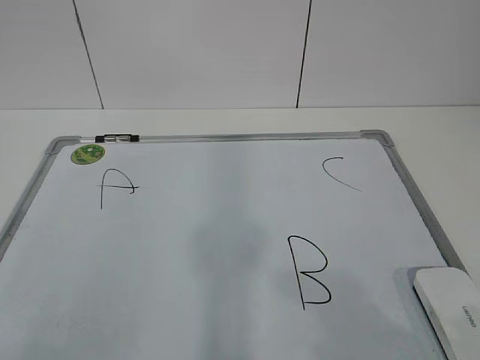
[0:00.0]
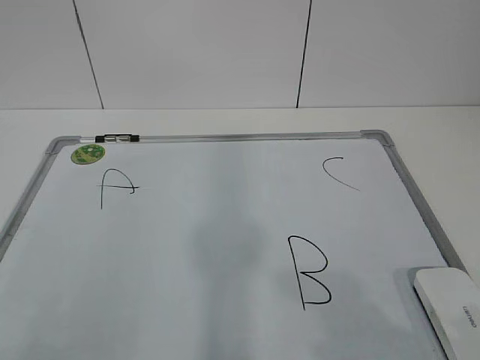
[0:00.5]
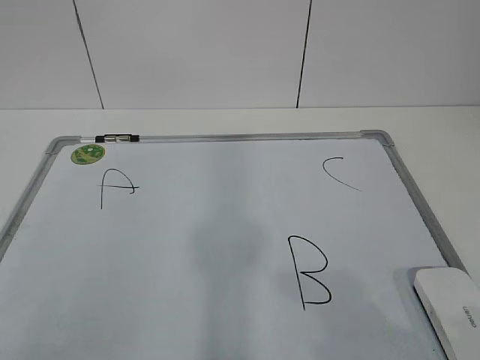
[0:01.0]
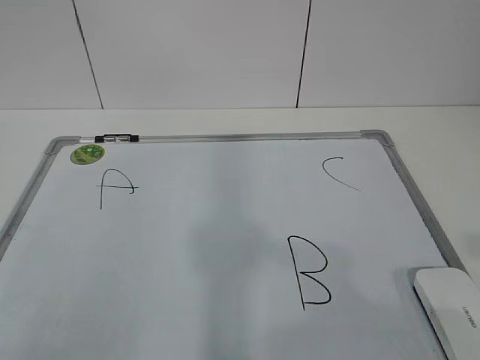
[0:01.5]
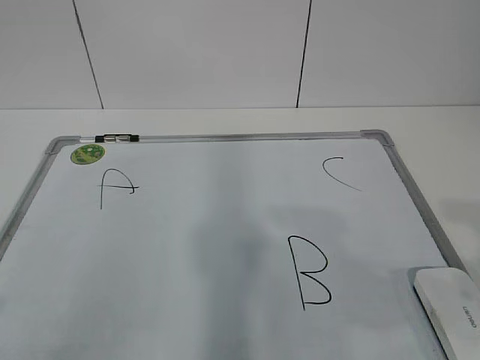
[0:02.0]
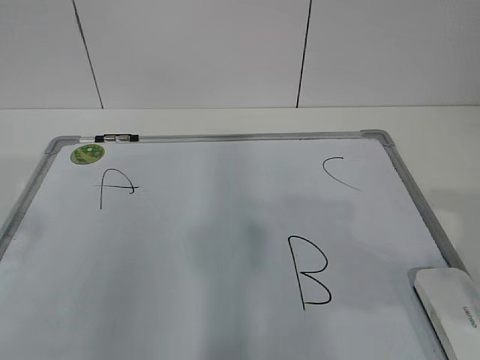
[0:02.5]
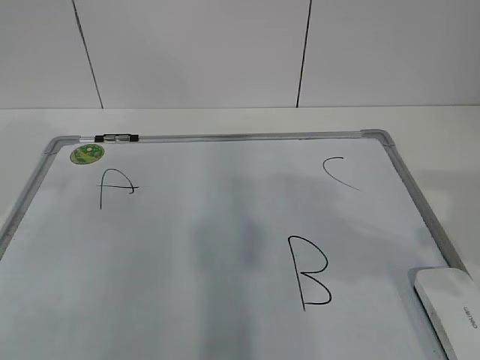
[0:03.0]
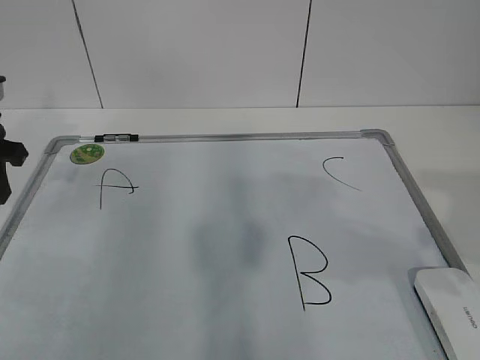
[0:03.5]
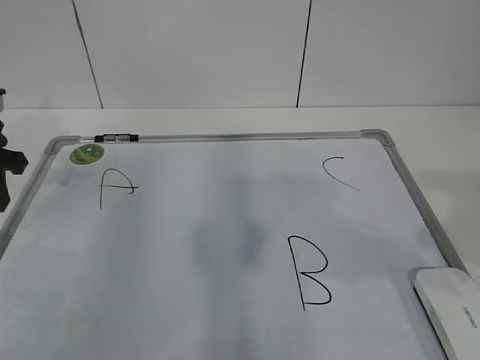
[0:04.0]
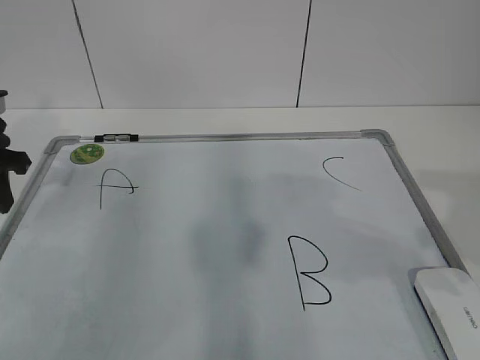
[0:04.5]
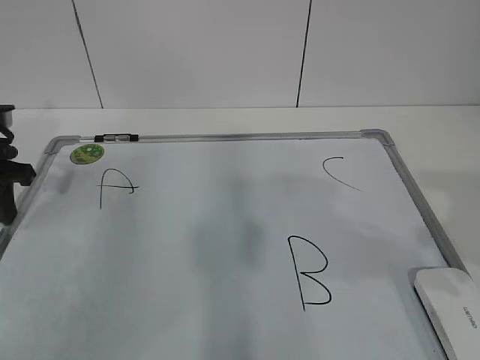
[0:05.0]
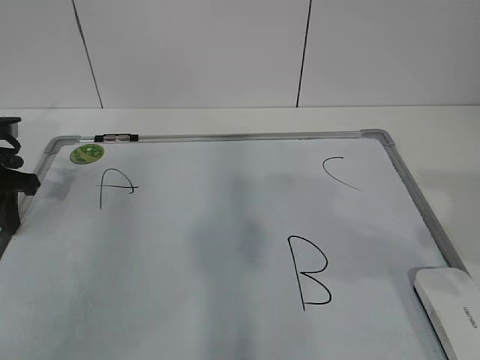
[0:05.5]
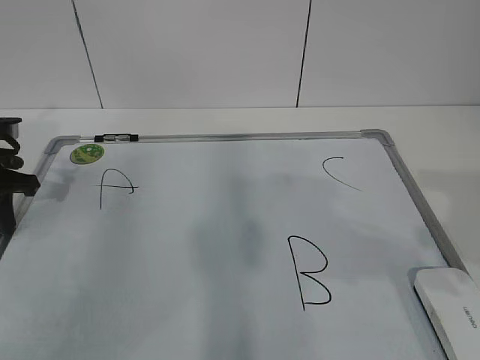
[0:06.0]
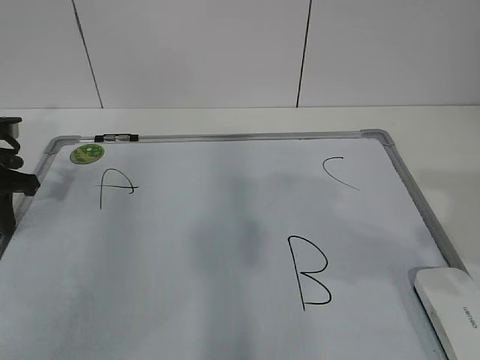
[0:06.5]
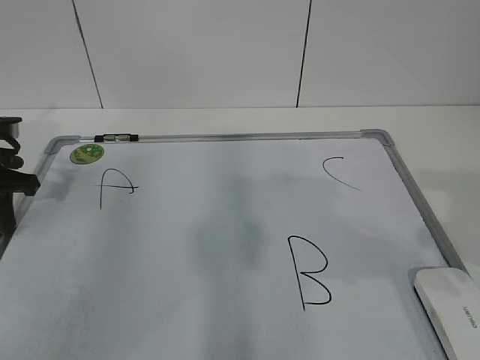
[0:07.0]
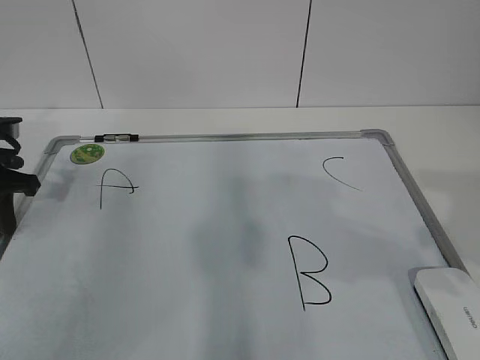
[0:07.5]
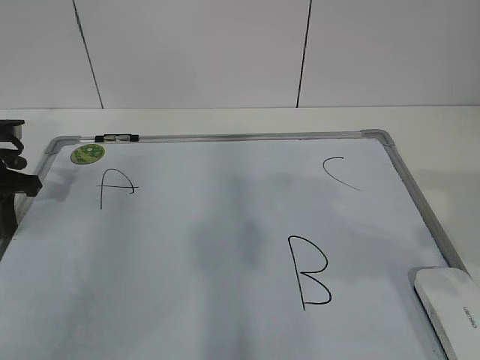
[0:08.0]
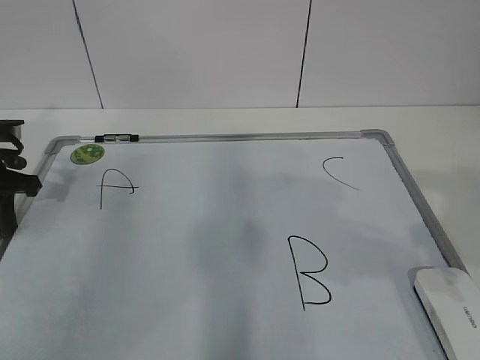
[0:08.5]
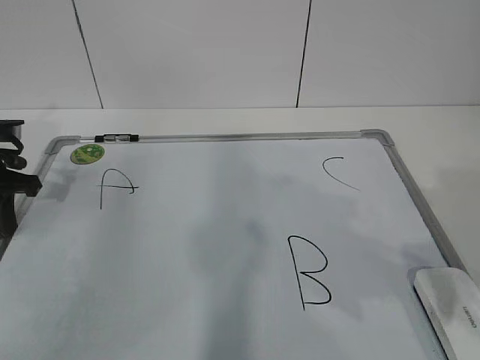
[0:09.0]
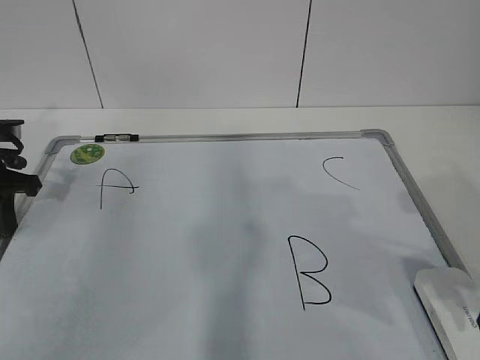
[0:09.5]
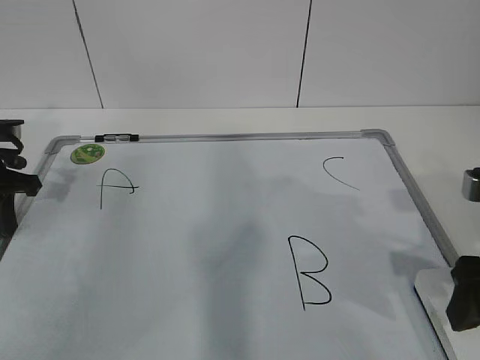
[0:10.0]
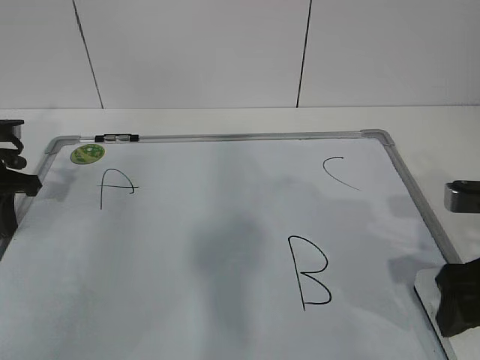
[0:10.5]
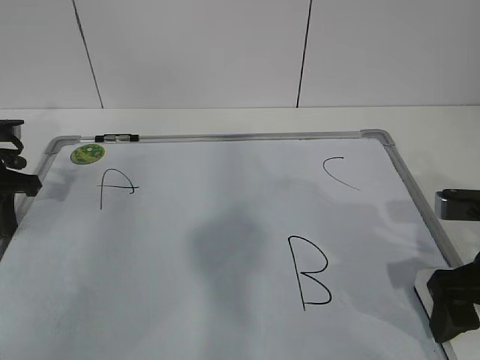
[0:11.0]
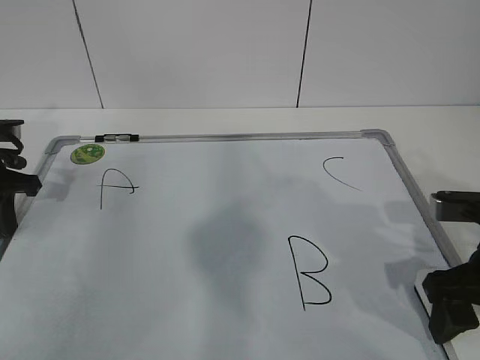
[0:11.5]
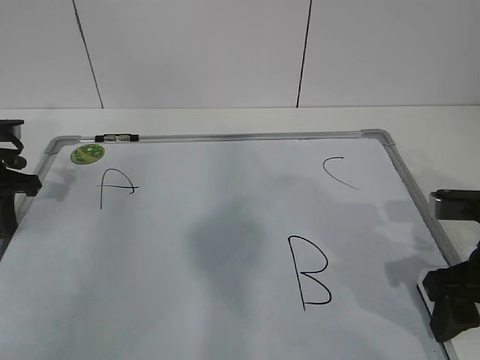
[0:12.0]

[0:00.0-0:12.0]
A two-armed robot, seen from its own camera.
Task of the whole recording: pick up the eraser on the blackboard and erase the letter "B".
0:02.0 to 0:04.0: The left gripper goes some 35 cm forward.
0:04.0 to 0:06.0: The left gripper closes up.
0:06.0 to 0:08.0: Both grippers stay put.
0:08.0 to 0:10.0: The right gripper shifts roughly 10 cm downward and forward, and opens.
0:10.0 to 0:12.0: The right gripper closes.

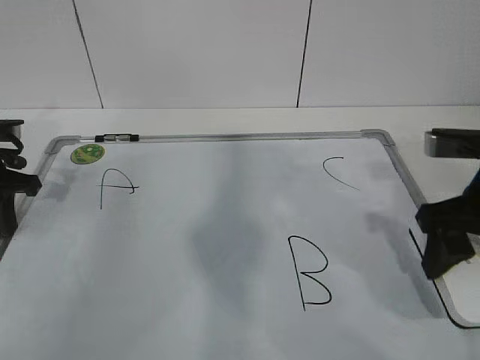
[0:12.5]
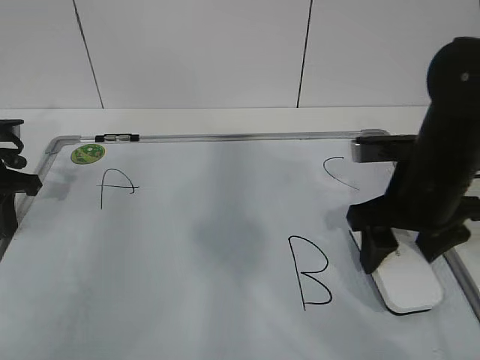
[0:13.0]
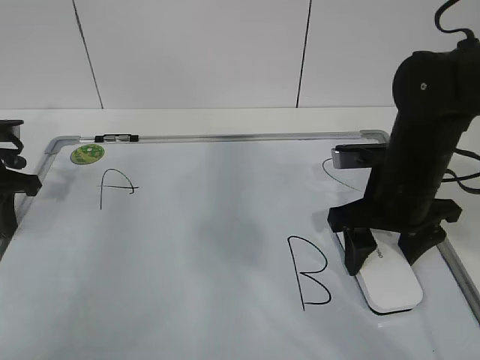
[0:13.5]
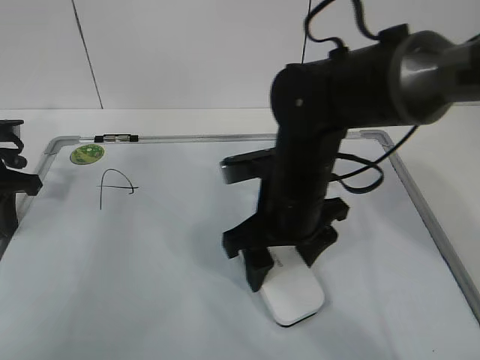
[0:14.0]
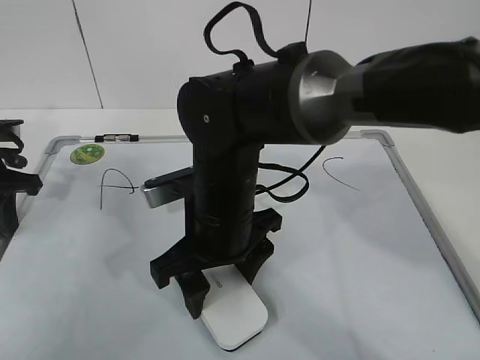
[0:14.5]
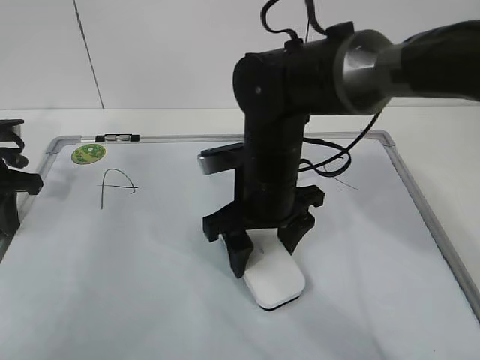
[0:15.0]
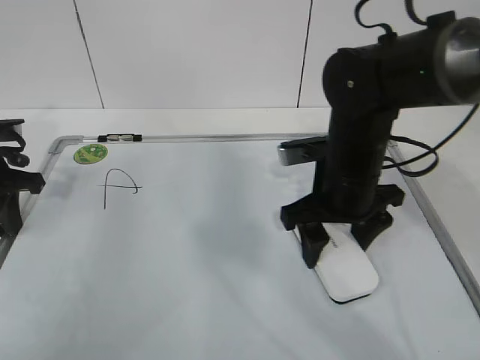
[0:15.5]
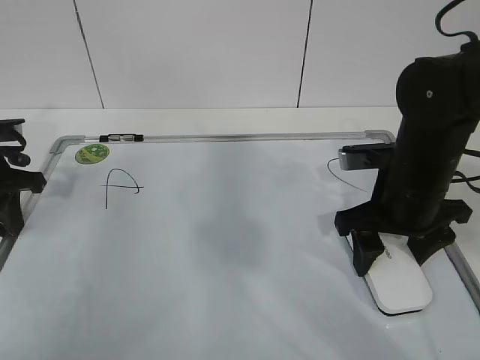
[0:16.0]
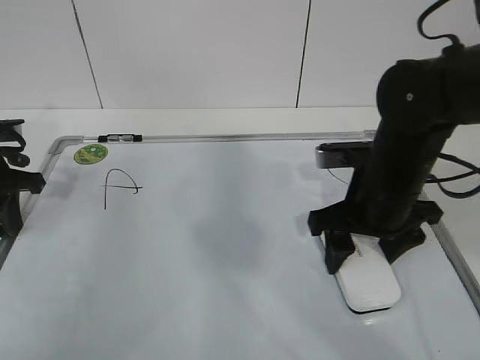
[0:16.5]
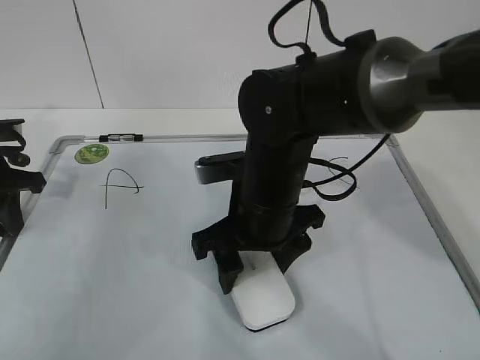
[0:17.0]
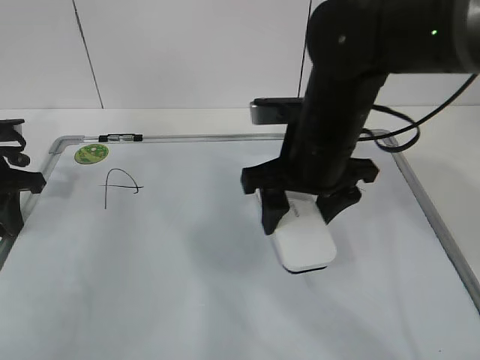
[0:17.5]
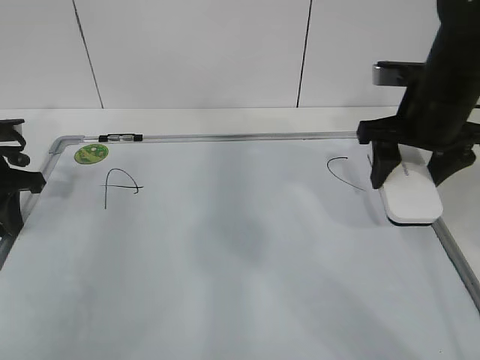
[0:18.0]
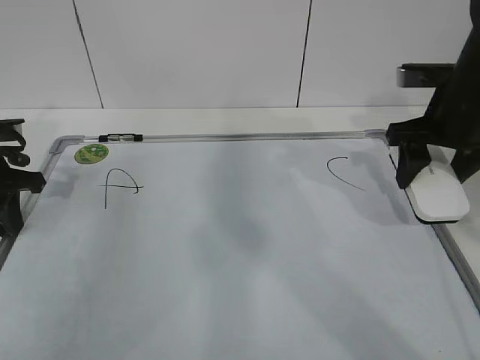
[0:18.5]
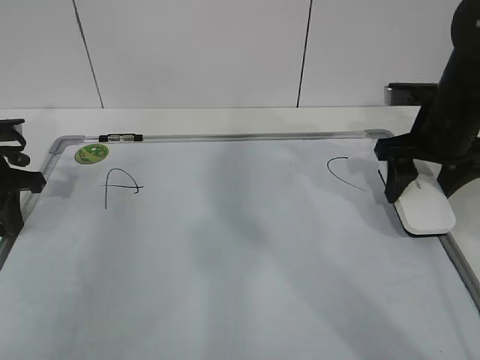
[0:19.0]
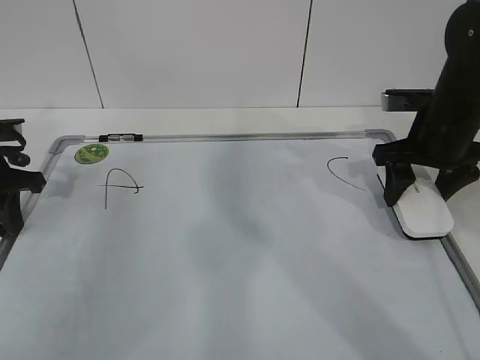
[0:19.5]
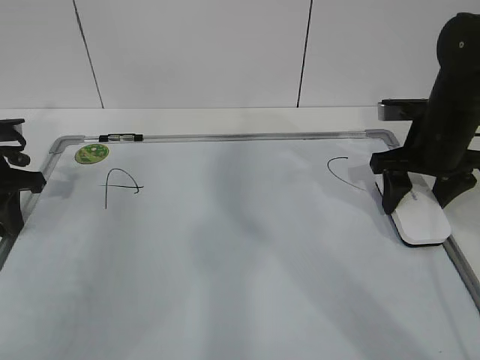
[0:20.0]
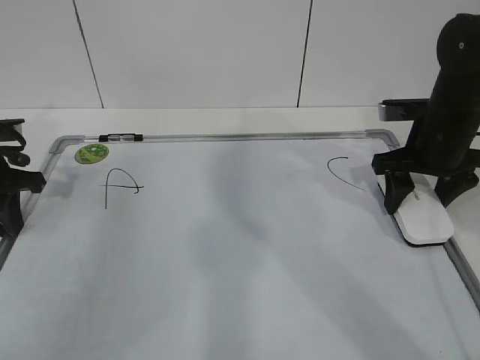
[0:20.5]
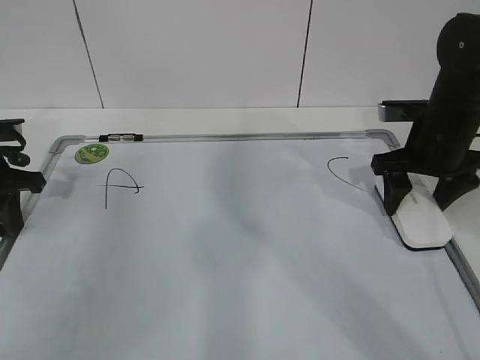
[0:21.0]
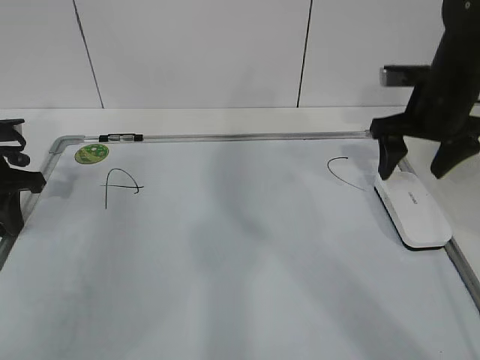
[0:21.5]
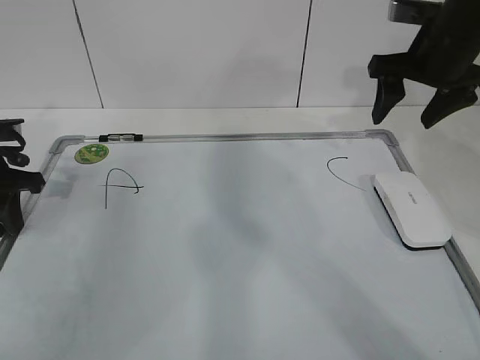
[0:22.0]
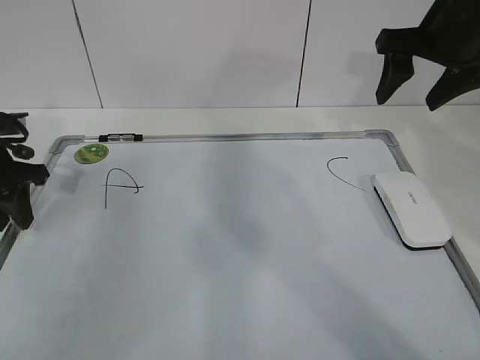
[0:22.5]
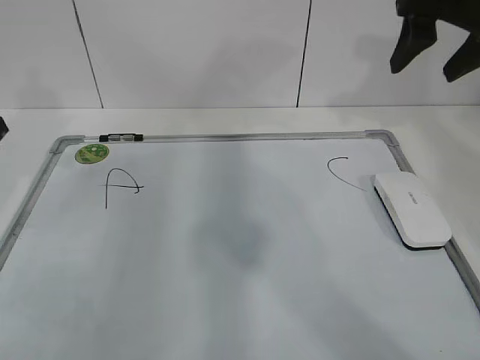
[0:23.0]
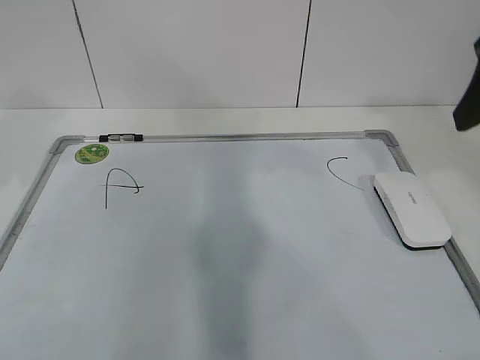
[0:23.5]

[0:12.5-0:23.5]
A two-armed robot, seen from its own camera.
Task of the whole recording: pick up the eraser on the blackboard and erase the letter "B".
Step, 0:14.5 to 0:17.5: Put down the eraser with your right hand.
0:12.5 to 0:14.5: The right gripper travels to the left by about 25 cm.
0:14.5 to 0:16.0: The right gripper travels to the right by approximately 20 cm.
0:16.0 to 0:18.0: The right gripper is displaced upward by about 5 cm, and reaches roughly 15 cm to the left, then returns.
0:18.0 to 0:20.0: The right gripper travels downward by about 5 cm.
0:20.0 to 0:21.5: The right gripper opens.
0:21.5 to 0:23.5: Both grippers move upward and backward, some 20 cm. The left gripper opens, while the right gripper closes up.
